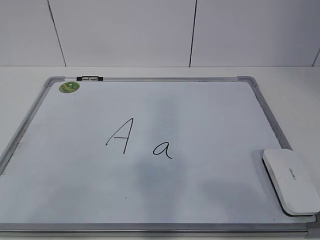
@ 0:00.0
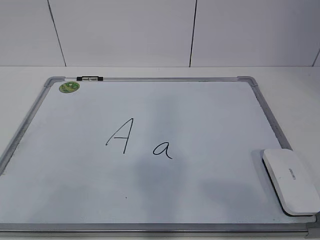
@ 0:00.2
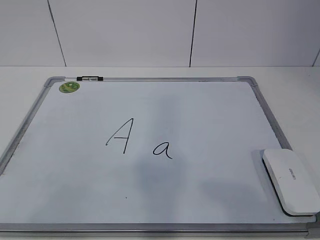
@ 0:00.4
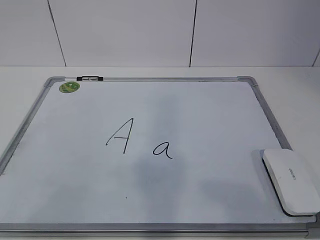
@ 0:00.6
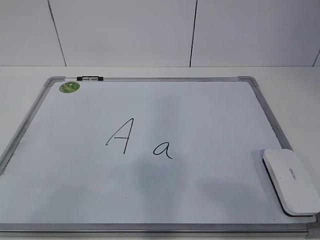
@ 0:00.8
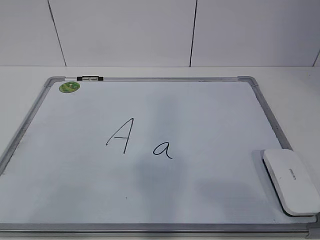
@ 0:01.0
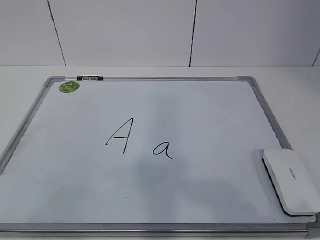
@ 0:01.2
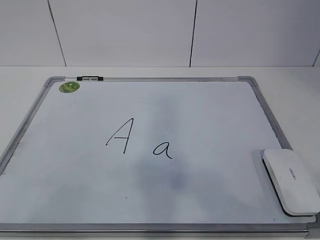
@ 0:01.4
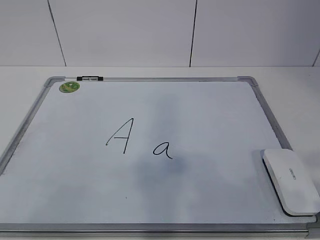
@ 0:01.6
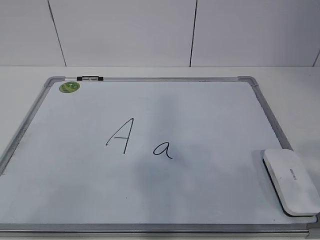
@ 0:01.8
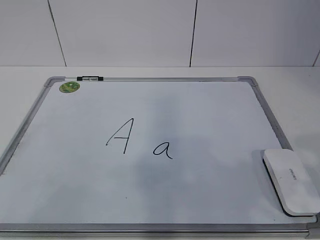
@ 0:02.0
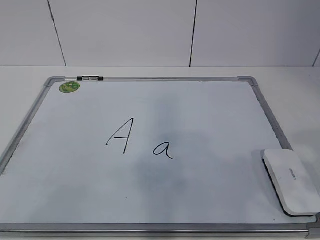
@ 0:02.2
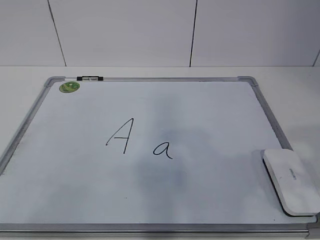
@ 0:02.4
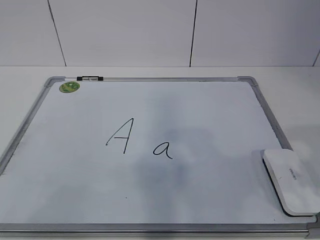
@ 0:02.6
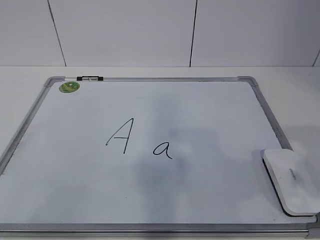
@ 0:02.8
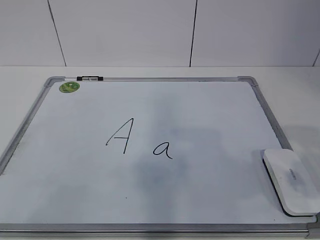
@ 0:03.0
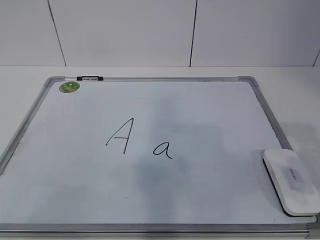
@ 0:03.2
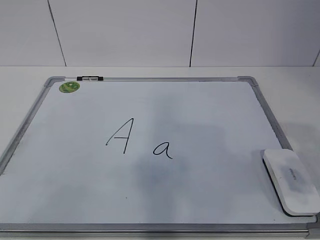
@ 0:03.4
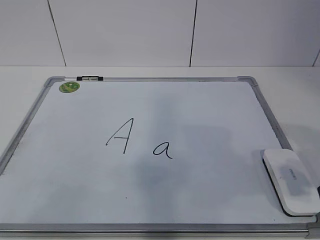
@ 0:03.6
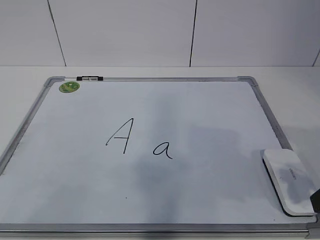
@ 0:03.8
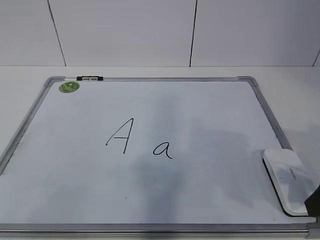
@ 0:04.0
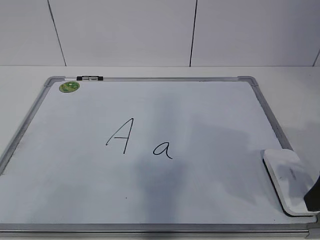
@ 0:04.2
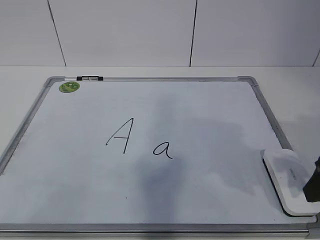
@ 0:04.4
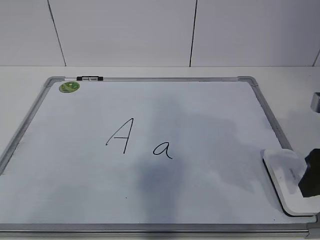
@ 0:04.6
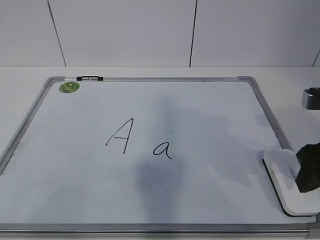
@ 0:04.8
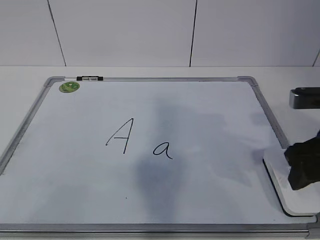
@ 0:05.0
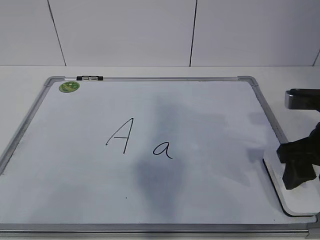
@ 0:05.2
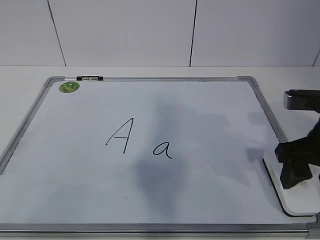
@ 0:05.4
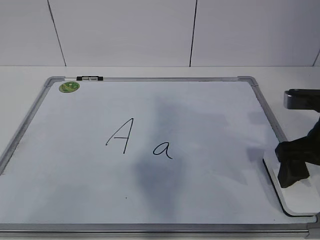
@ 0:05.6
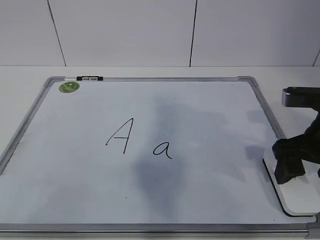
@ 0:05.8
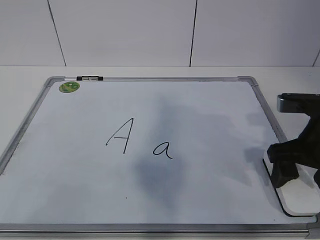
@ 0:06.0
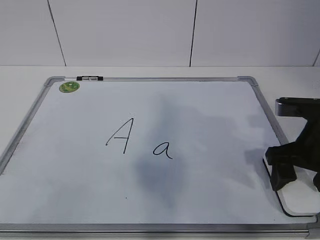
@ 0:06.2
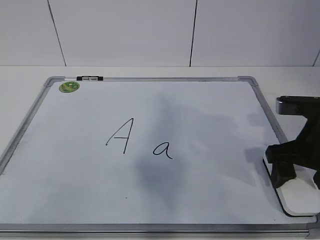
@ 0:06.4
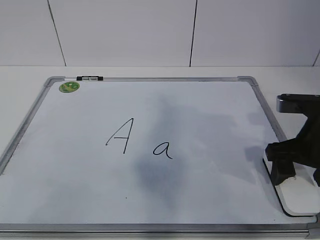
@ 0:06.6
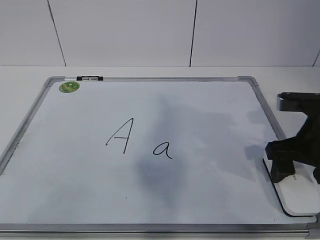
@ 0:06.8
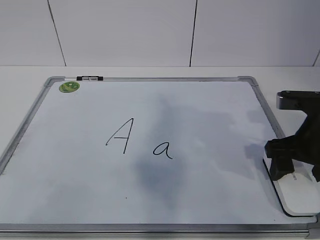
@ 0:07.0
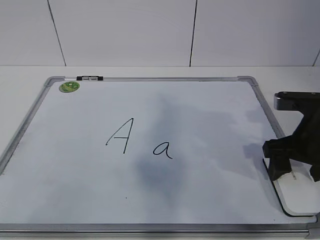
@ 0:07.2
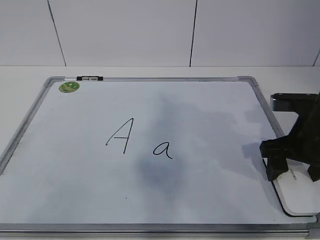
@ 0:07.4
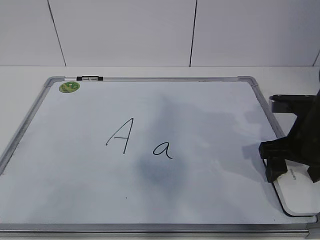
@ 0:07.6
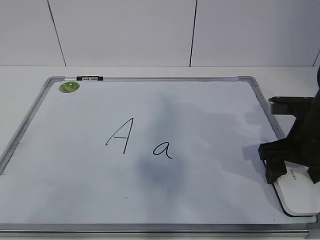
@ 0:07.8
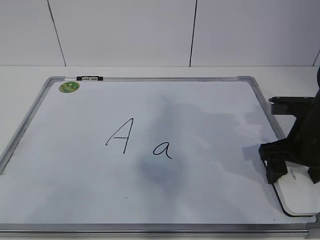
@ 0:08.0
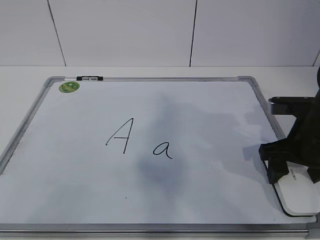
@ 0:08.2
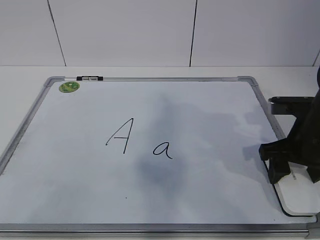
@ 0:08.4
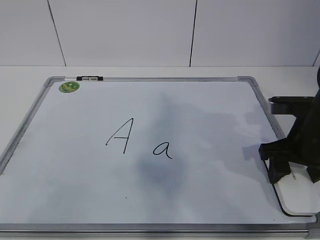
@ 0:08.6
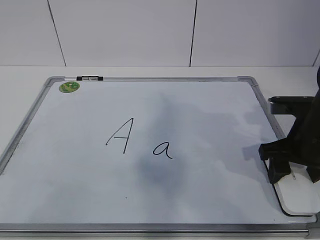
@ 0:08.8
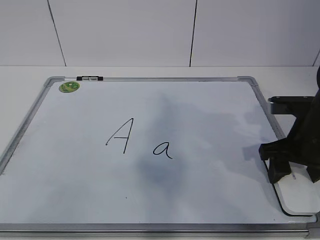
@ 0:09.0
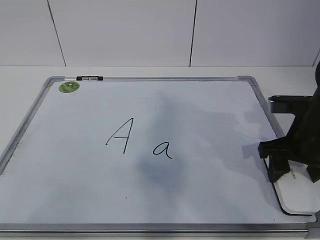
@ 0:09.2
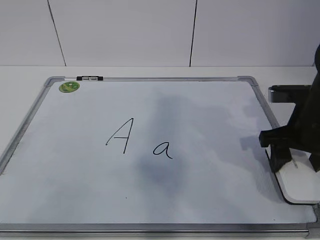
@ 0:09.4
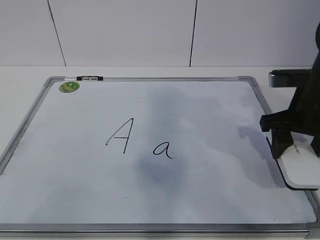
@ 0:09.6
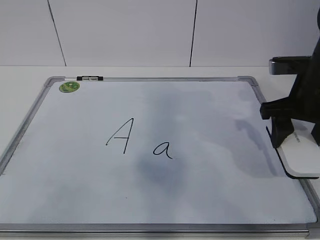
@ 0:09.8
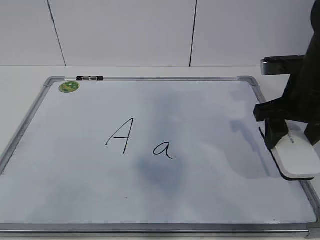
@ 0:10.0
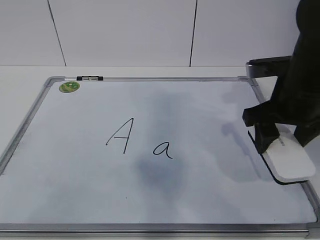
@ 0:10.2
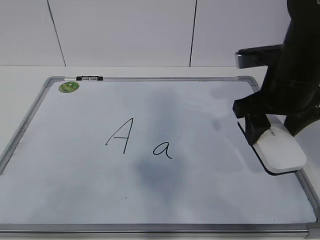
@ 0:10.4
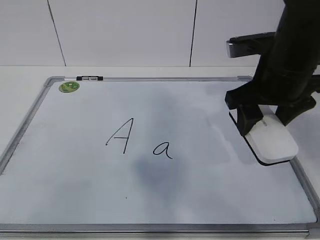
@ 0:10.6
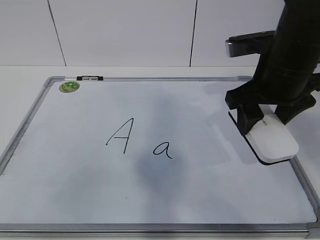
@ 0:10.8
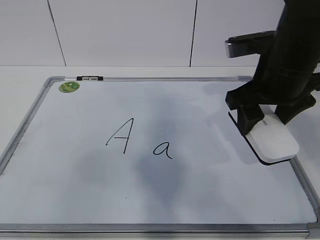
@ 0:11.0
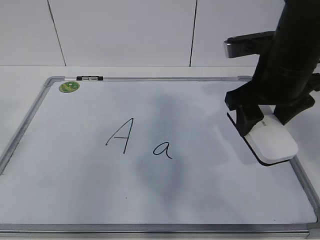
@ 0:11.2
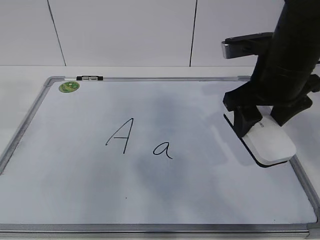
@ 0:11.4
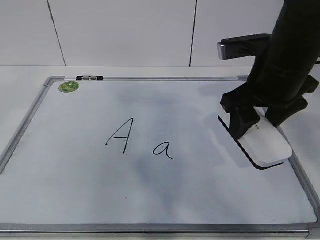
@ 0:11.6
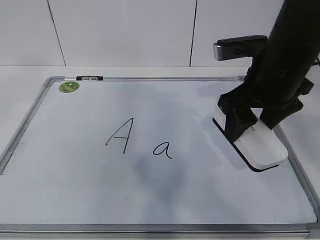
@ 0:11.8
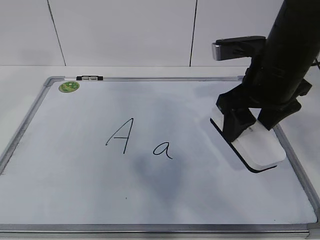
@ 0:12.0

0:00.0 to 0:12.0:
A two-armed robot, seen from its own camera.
Task of the whole recording: pick up the eraser on the blackboard and erase the letter "a".
Step, 0:00.0 to 0:06.8: Grab the eraser with your right hand.
0:03.0 to 0:04.4: The right gripper travels forward by roughly 10 cm.
0:04.4 to 0:06.0: The right gripper travels forward by some 5 cm, and opens.
0:06.0 to 0:07.6: There are only small adjustments of the grippers.
0:07.6 to 0:09.0: The right gripper closes up.
0:09.0 to 0:10.4: The right gripper travels upward and to the left by some 10 cm.
0:10.4 to 0:12.0: The left gripper travels forward by some 30 cm.

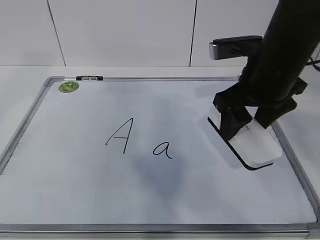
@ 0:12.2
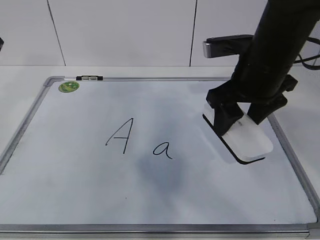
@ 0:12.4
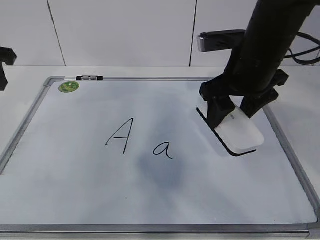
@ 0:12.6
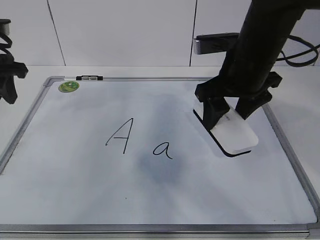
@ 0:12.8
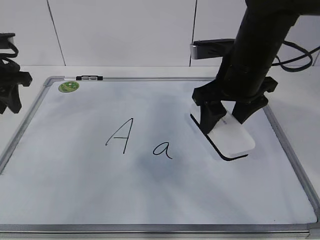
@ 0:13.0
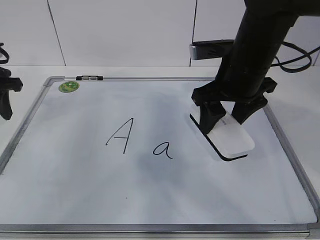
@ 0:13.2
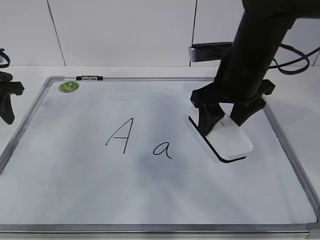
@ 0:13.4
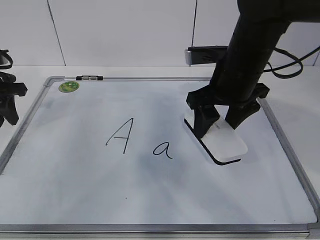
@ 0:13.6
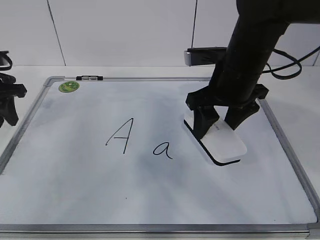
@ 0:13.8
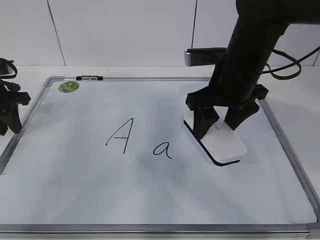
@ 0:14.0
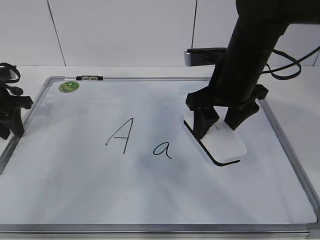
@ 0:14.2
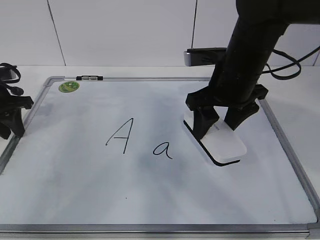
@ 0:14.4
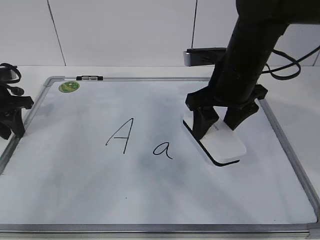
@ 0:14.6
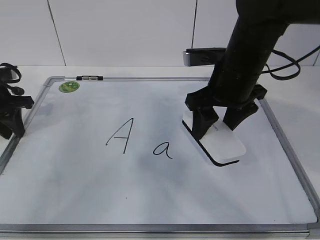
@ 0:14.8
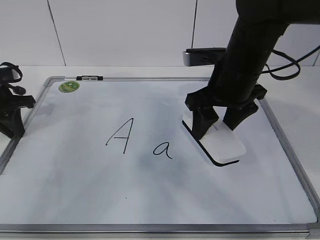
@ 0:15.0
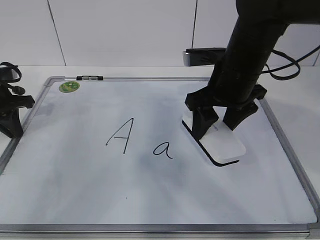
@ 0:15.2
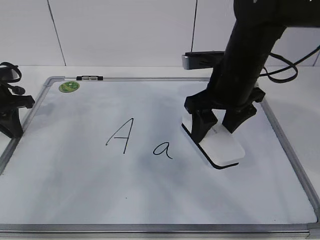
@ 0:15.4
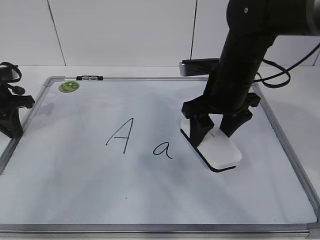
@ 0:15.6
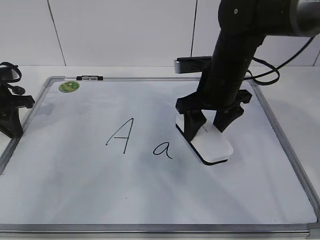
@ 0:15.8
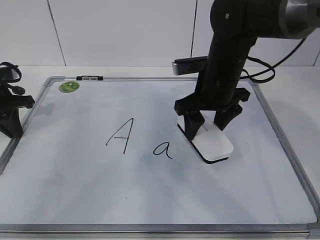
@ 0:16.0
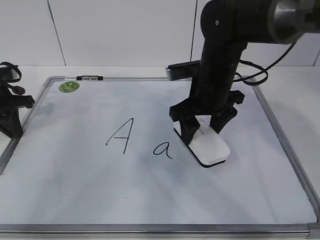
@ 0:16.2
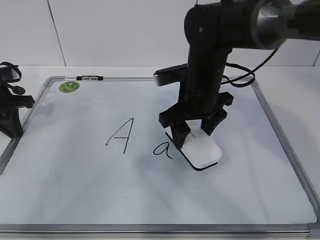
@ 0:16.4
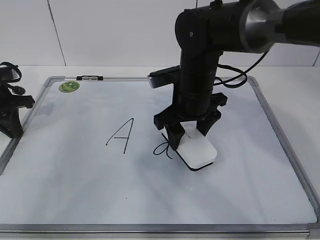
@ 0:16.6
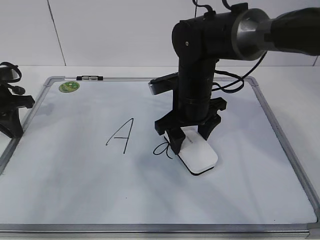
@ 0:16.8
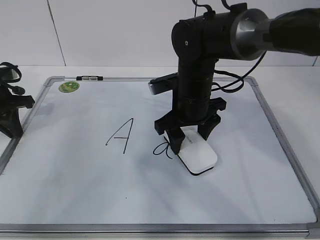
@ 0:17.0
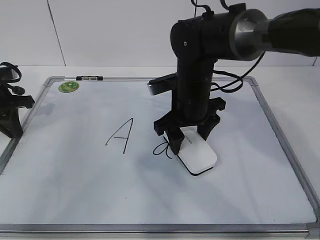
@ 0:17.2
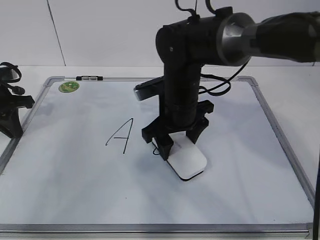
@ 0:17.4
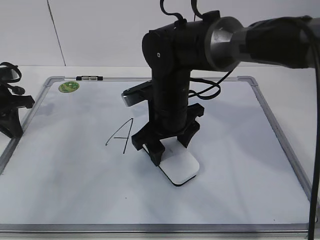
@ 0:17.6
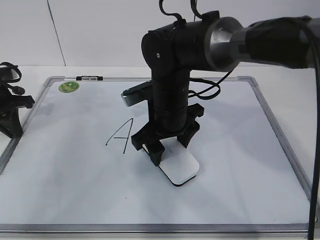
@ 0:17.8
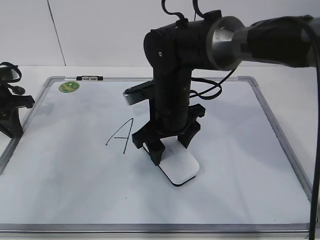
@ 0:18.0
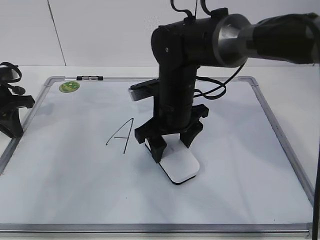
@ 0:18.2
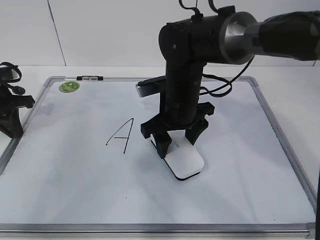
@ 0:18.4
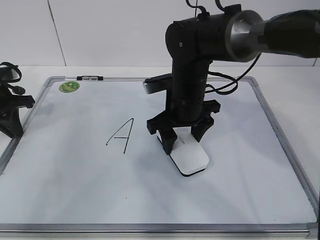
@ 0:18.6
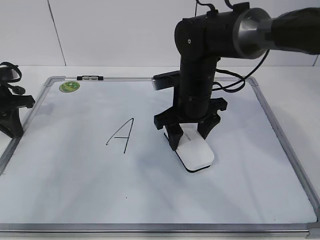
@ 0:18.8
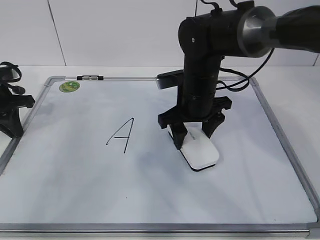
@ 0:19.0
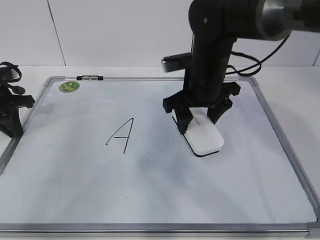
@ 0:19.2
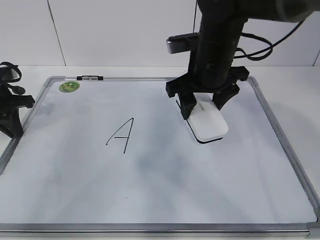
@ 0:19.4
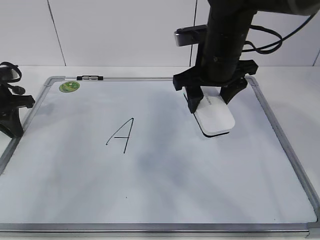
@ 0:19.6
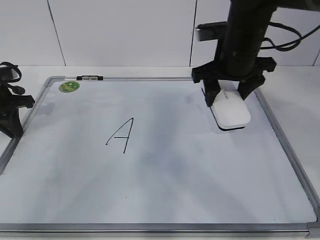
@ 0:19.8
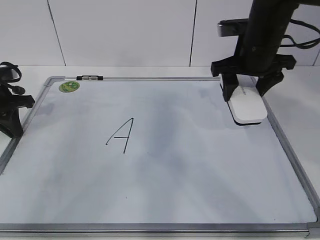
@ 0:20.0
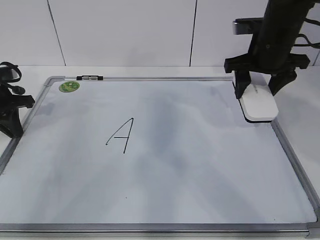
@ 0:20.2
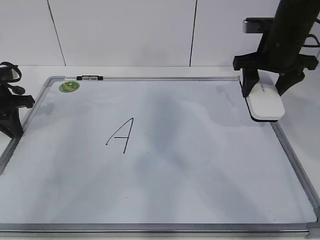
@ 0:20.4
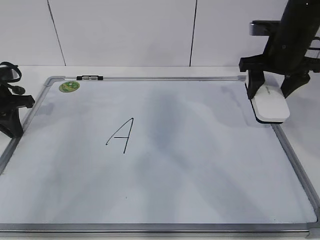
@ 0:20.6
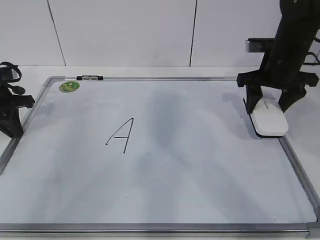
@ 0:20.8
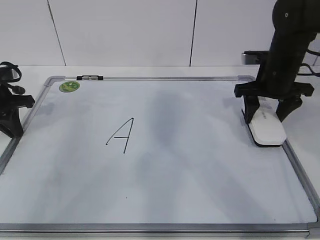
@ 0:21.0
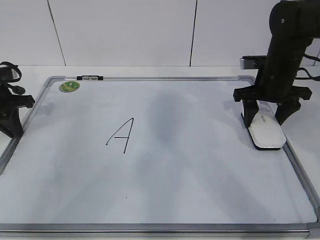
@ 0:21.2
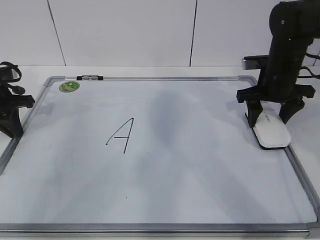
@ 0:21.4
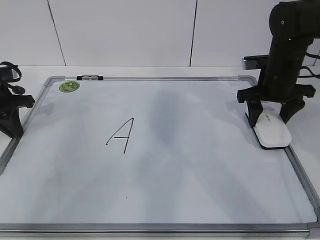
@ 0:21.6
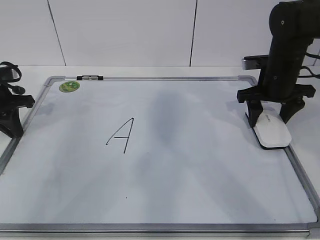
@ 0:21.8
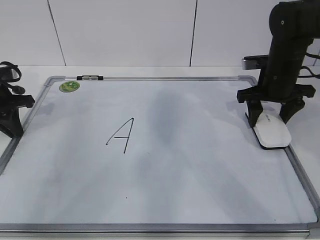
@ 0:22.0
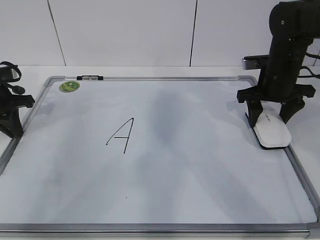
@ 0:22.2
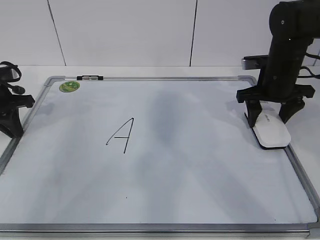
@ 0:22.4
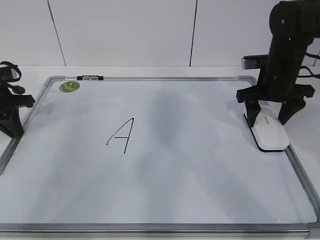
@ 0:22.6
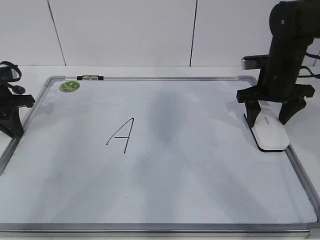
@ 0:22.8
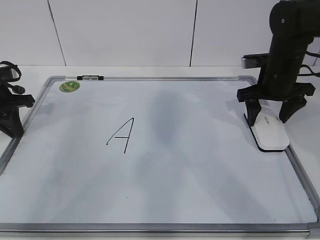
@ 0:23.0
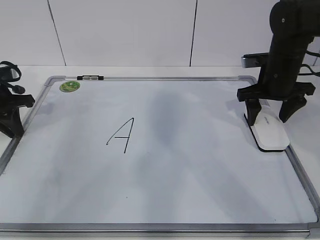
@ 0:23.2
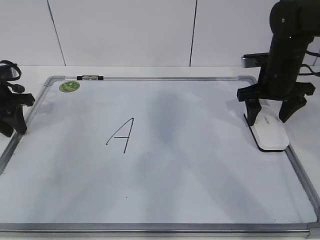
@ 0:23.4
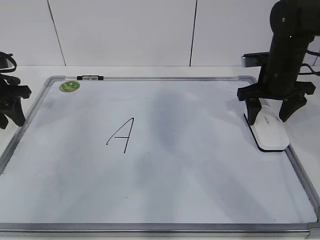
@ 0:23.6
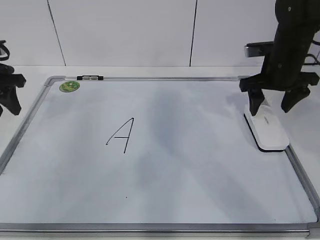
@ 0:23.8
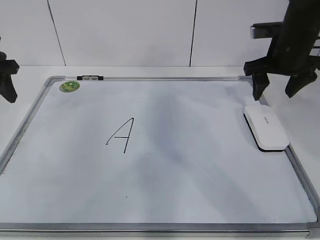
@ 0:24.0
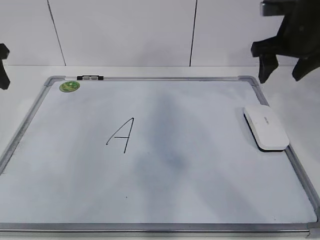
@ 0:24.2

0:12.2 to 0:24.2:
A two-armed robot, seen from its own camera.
Task of the whole recording: pick up the eraser on the blackboard and erase the letter "a".
Step, 0:12.8 to 0:15.6: Erase the letter a with your right hand.
Step, 0:15.8 to 0:18.8: Put down the eraser with your right hand.
0:12.2 to 0:13.8: The right gripper ends up some 5 cm from where it was. Meanwhile the left gripper shifts some 15 cm downward and forward.
0:13.8 to 0:15.2: The left gripper closes its fingers.
0:15.2 to 0:16.6: The right gripper goes approximately 5 cm to the left.
0:16.6 to 0:18.2: The grippers stay close to where they were, moving slightly.
0:18.2 to 0:19.8: The right gripper heads to the right and upward, covering roughly 15 cm.
0:19.8 to 0:21.2: The right gripper heads to the right and downward, covering about 10 cm.
0:21.2 to 0:22.6: The right gripper opens up.
0:22.6 to 0:24.2: Both grippers move upward, about 10 cm. The left gripper opens its fingers.
